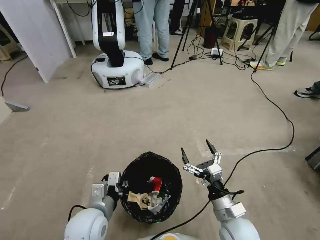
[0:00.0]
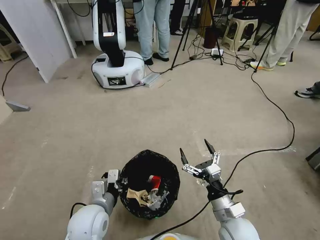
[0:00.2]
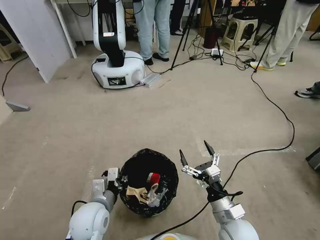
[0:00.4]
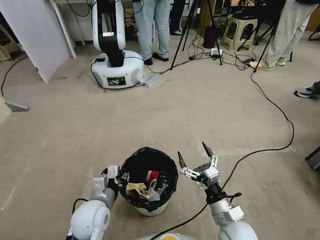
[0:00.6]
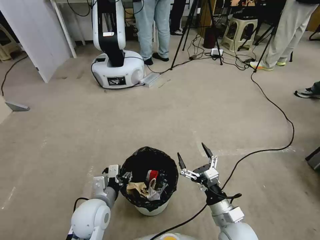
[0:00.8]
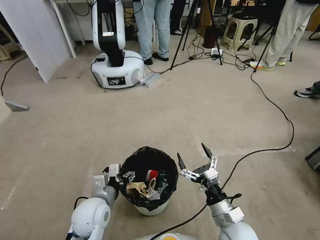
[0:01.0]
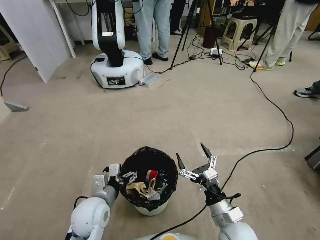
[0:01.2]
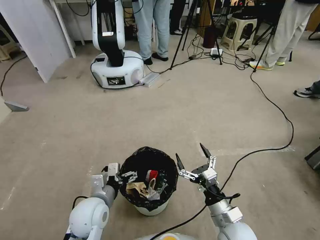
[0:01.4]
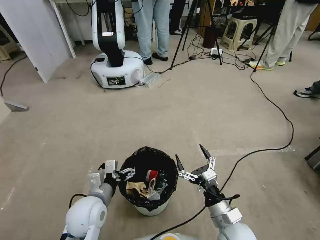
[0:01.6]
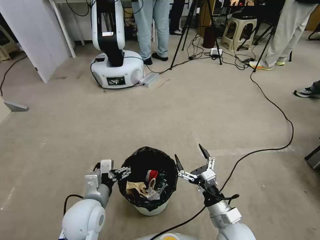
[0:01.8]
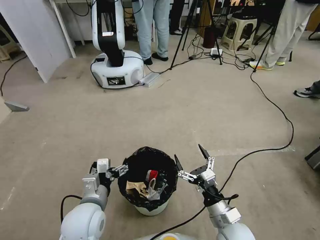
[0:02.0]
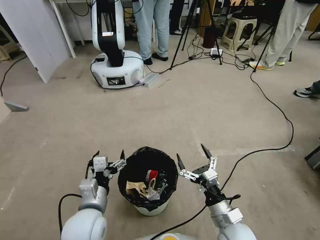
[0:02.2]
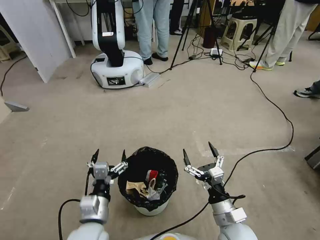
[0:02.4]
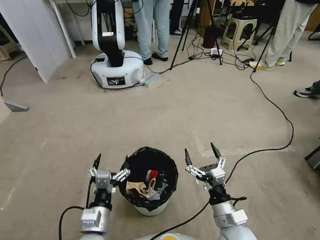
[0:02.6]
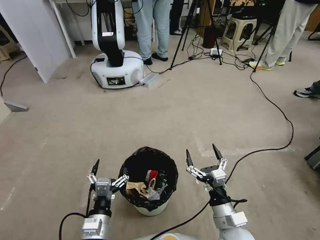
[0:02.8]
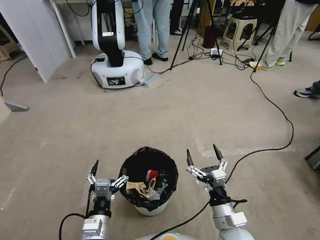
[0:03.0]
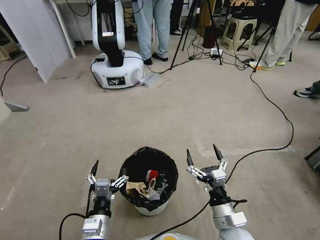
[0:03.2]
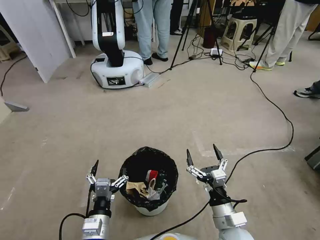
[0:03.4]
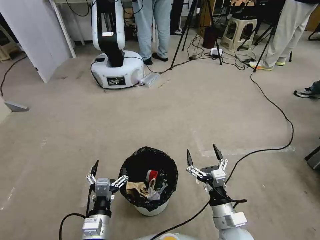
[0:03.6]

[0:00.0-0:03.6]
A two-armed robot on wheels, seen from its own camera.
Task of the whole recording: Pick up the trash bin, then pick up the garbage from the floor and place it into the trash bin.
0:00.0 to 0:01.8: The left gripper opens.
0:01.8 to 0:03.6: The left gripper moves backward and downward, some 10 cm.
